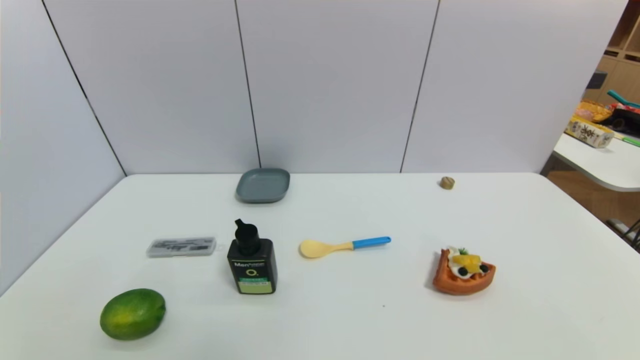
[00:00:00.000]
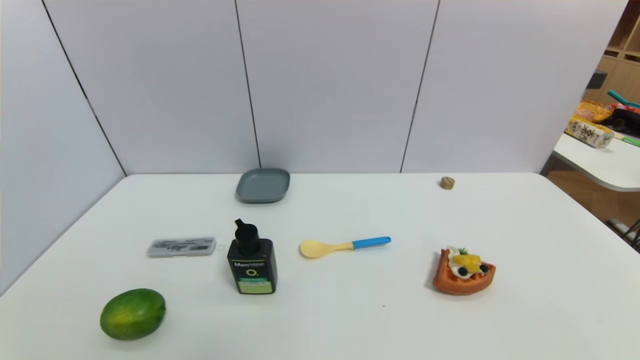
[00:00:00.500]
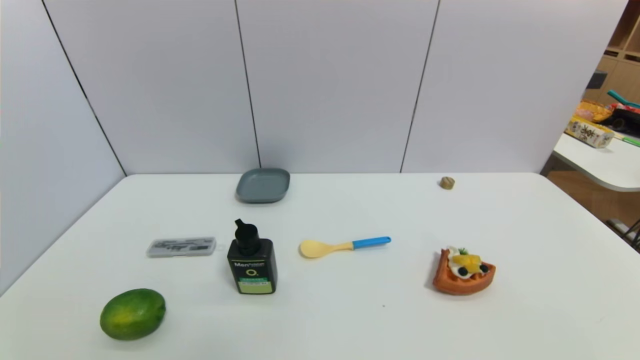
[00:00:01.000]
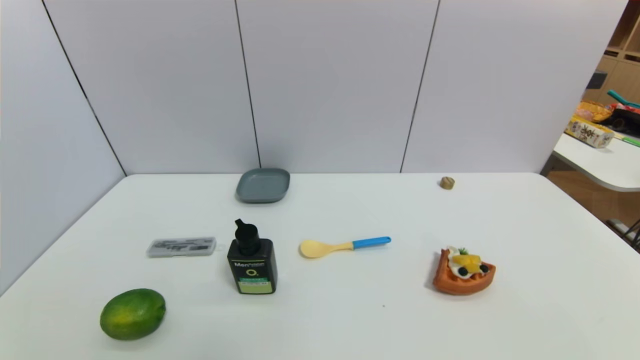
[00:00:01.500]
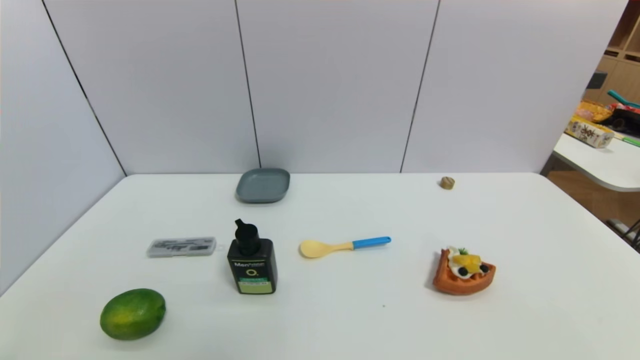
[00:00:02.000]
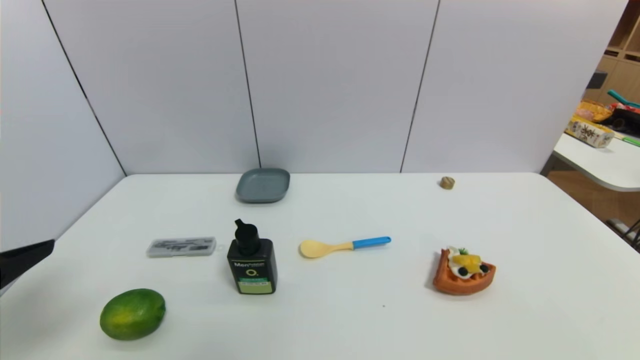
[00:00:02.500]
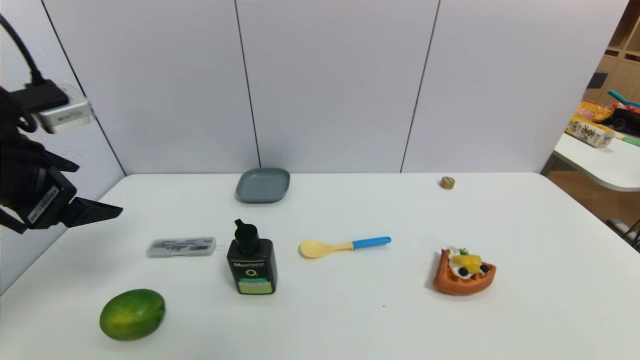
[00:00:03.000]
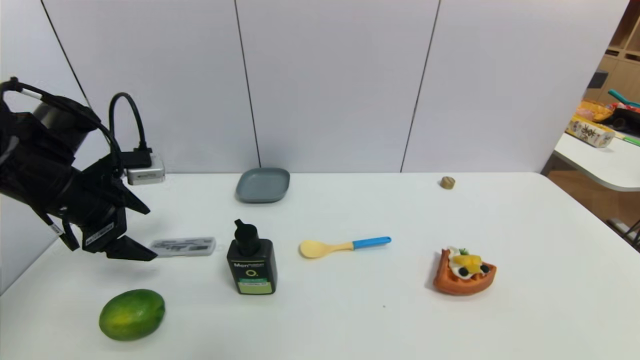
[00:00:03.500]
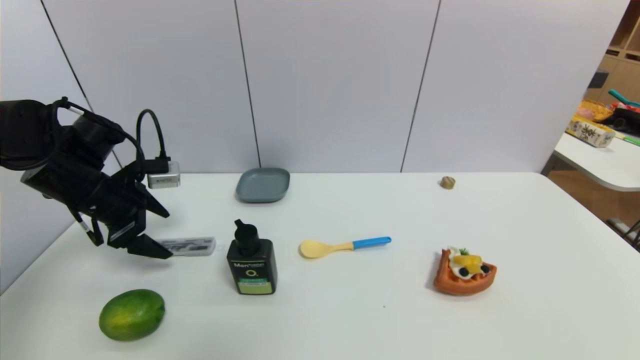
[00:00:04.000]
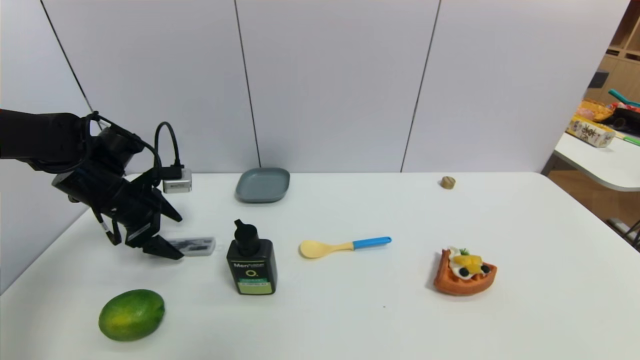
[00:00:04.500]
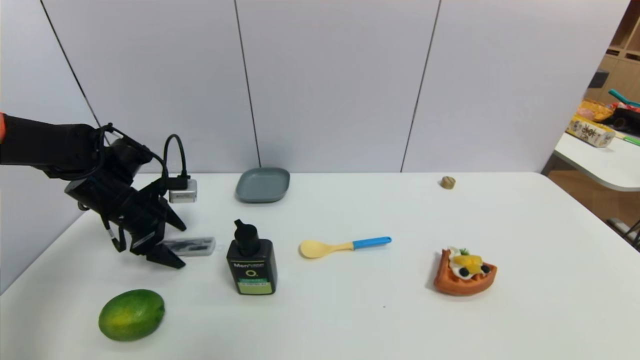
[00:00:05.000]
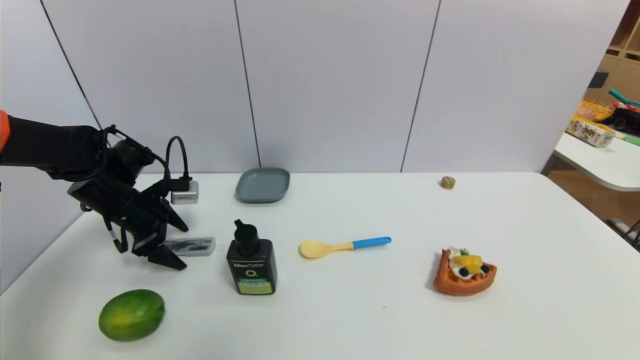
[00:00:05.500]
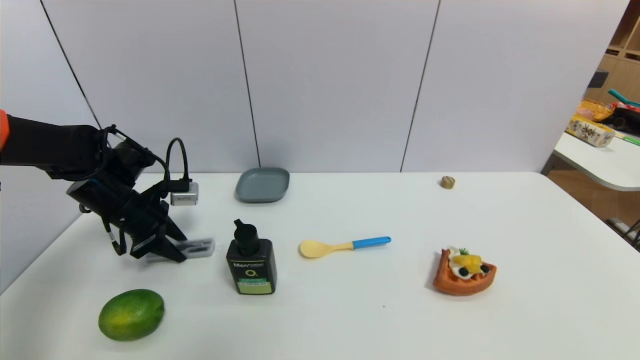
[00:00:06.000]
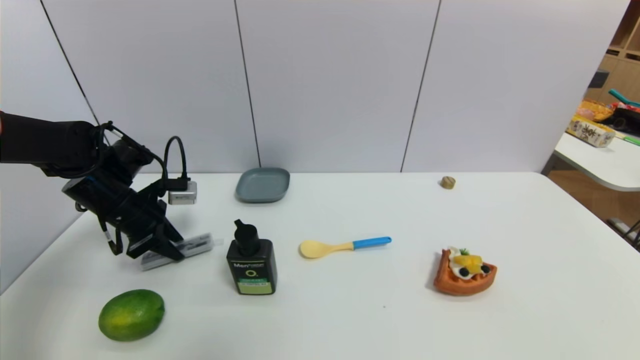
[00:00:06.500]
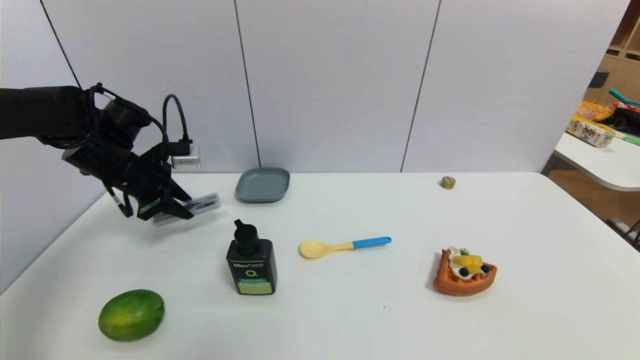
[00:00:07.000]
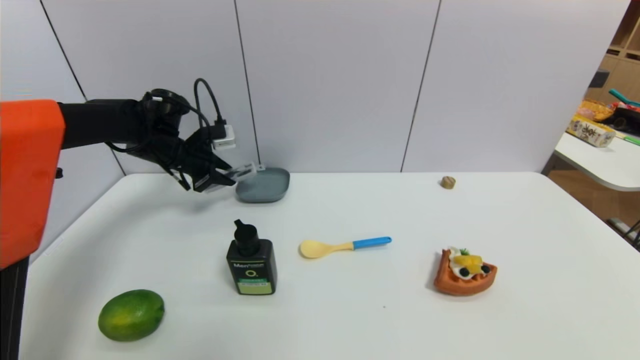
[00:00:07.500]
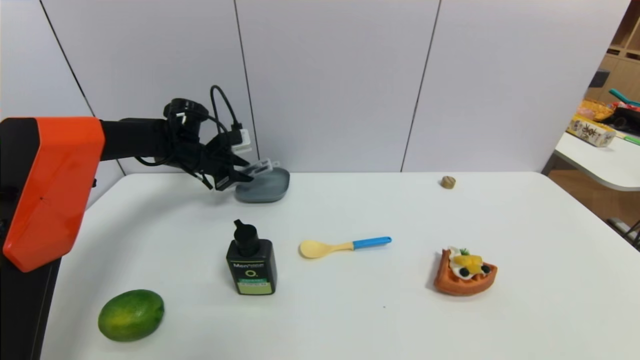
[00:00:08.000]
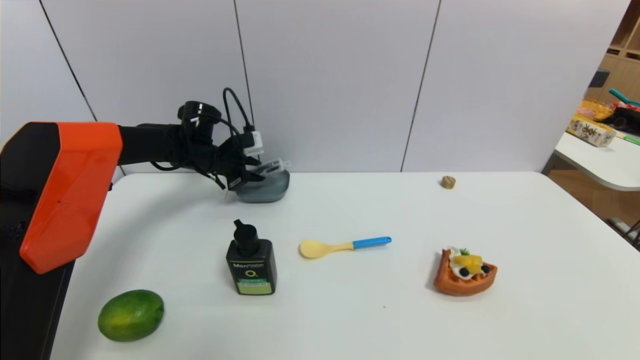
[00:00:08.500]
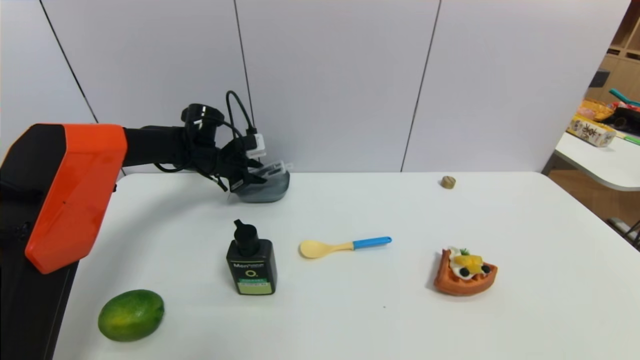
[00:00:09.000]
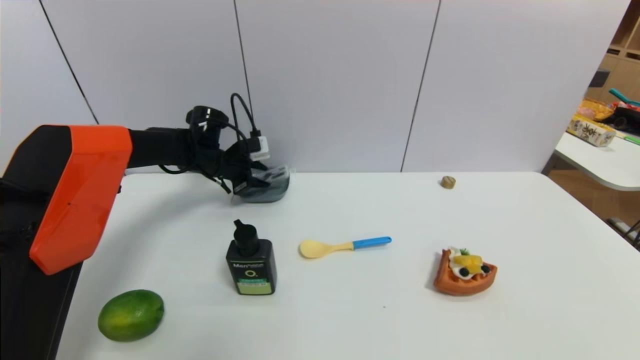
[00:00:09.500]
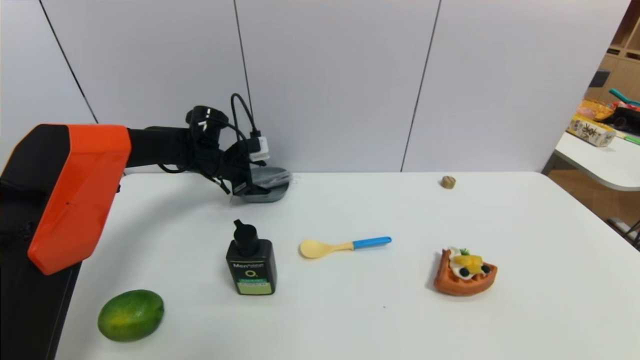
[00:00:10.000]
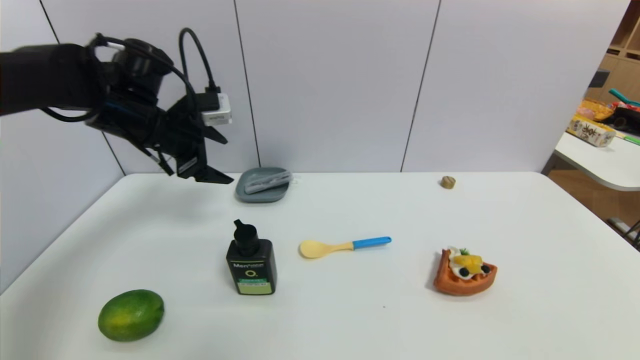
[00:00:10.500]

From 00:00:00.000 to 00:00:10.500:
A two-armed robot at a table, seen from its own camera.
Task of the whole recording: use a gripper to pick the target object and place on the dish.
Step, from 00:00:00.000 to 00:00:06.000: Grasp the compasses with the left gripper.
Step, from 00:00:06.500 to 00:00:10.000: Place the compasses on the dish with the left gripper.
From 00:00:02.000 to 00:00:04.000: The left gripper shifts roughly 35 cm forward.
From 00:00:04.000 to 00:00:06.500: The left gripper closes its fingers.
From 00:00:06.500 to 00:00:08.500: The left gripper heads forward and to the right, covering some 15 cm.
From 00:00:08.500 to 00:00:10.500: The left gripper travels backward and upward by approximately 15 cm, and opens up.

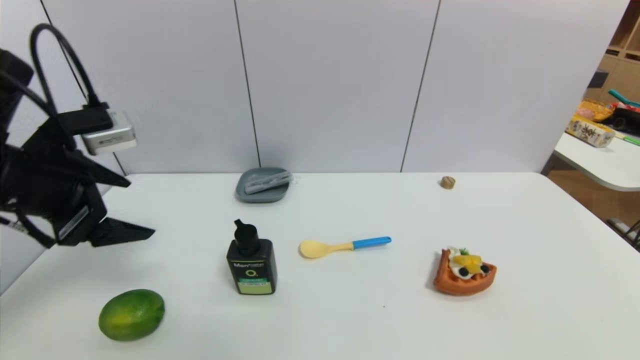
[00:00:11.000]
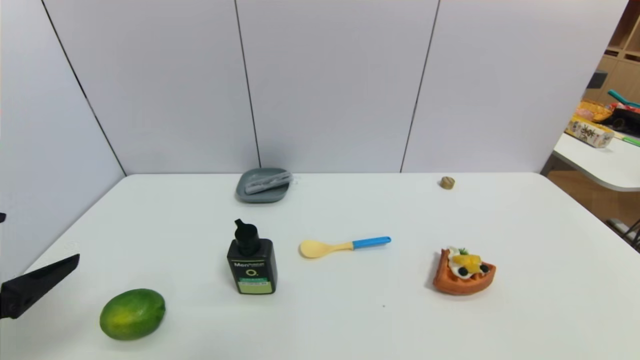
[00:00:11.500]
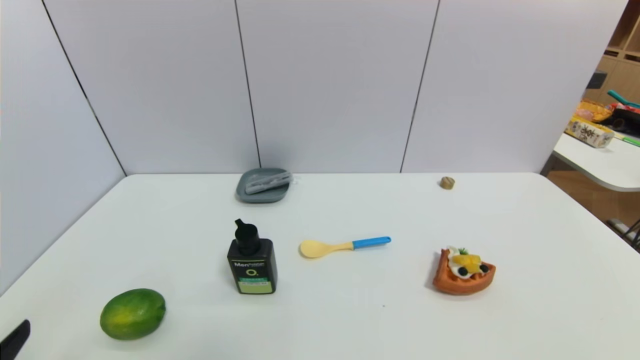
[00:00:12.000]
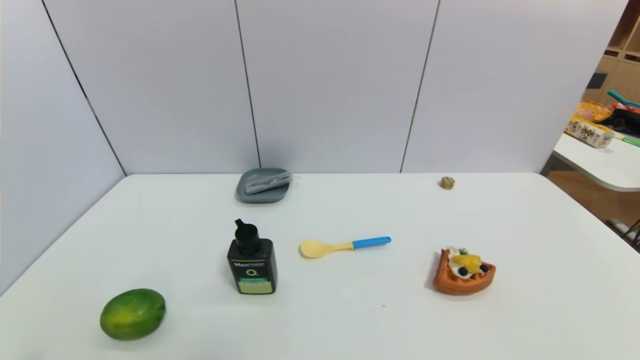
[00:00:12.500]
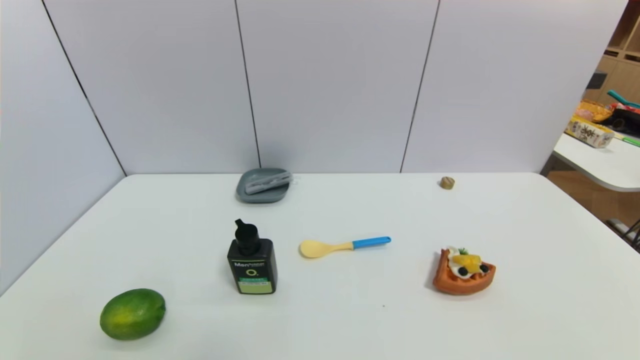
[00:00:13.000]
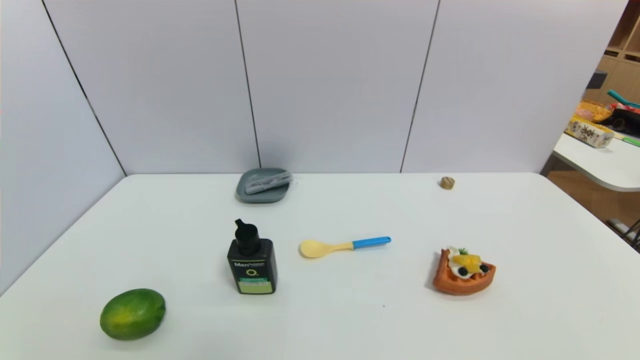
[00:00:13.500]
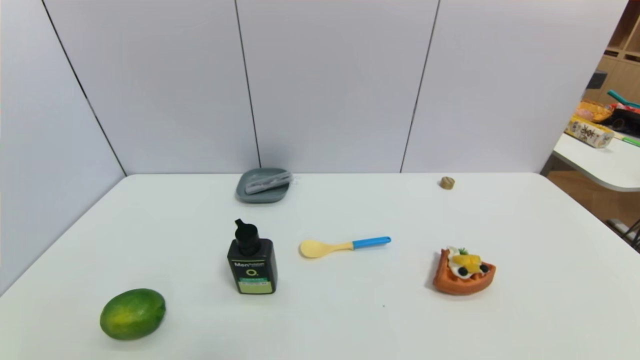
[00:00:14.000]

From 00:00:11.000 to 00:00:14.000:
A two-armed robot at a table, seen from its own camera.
Task of the whole recording: use a gripper to pick the target object and place on the dish.
From 00:00:11.000 to 00:00:12.500: The left gripper goes about 30 cm backward and downward.
